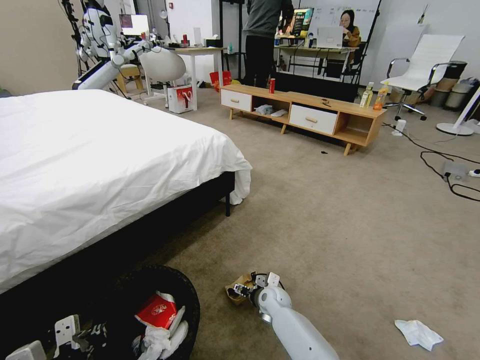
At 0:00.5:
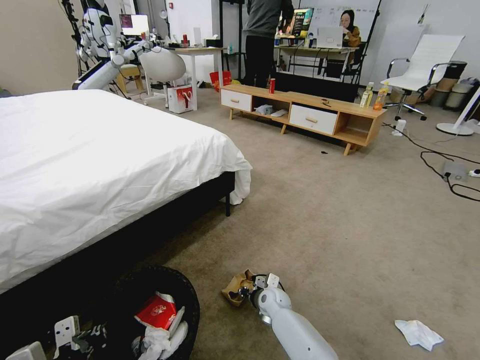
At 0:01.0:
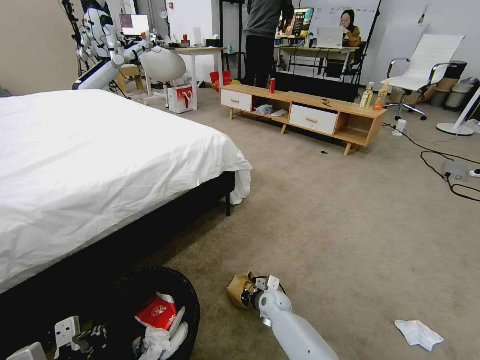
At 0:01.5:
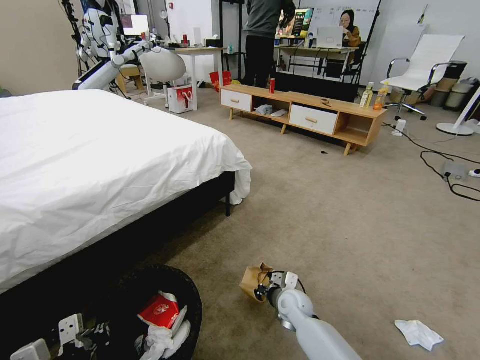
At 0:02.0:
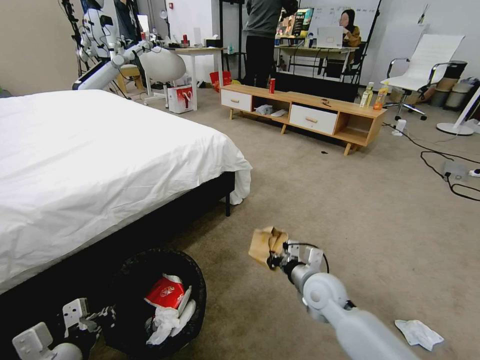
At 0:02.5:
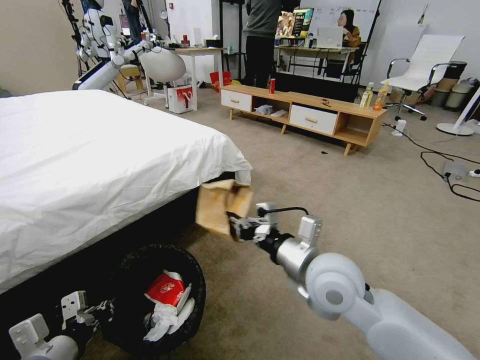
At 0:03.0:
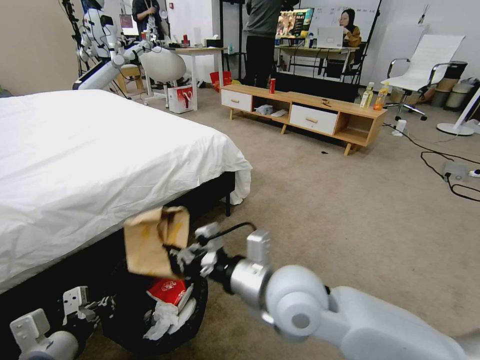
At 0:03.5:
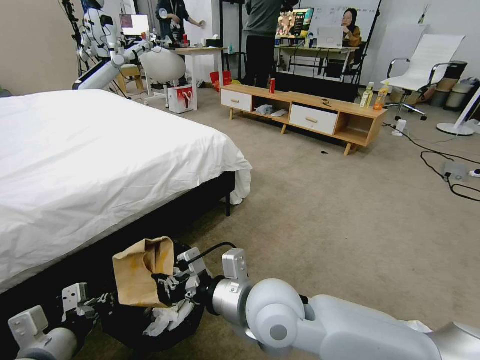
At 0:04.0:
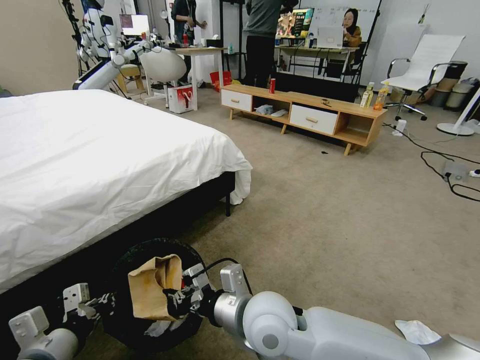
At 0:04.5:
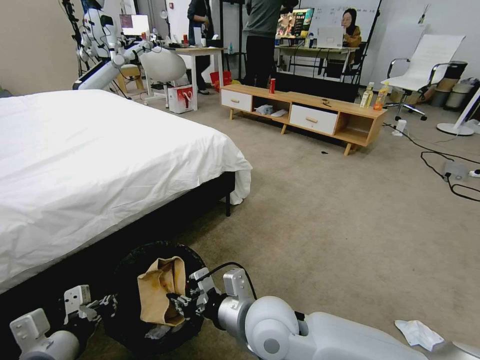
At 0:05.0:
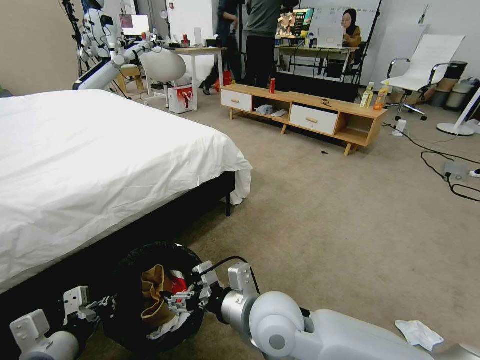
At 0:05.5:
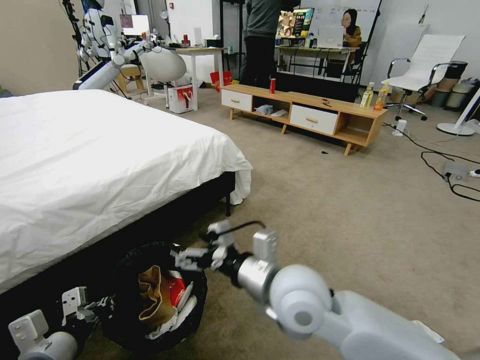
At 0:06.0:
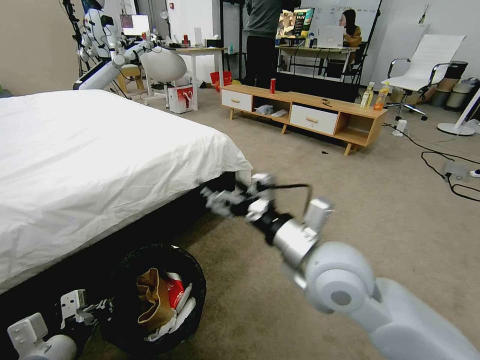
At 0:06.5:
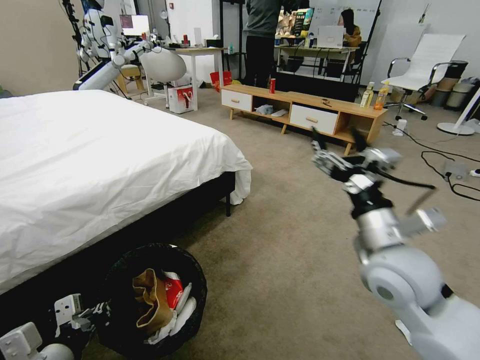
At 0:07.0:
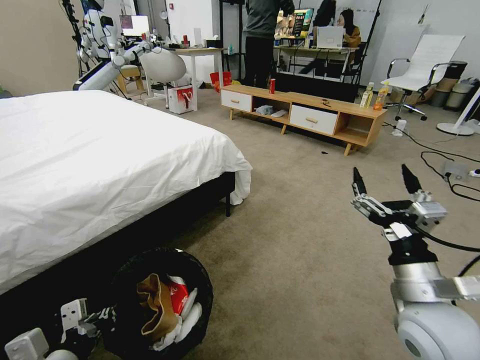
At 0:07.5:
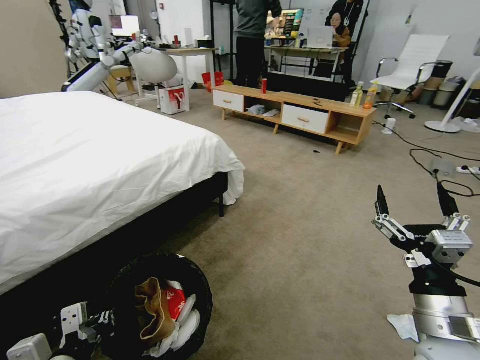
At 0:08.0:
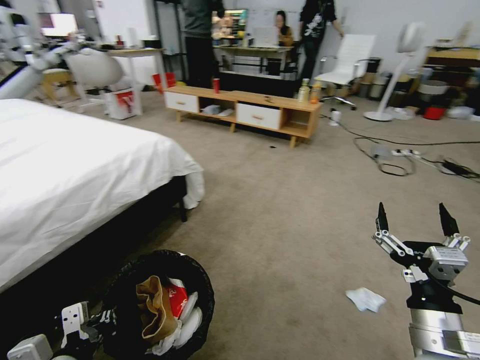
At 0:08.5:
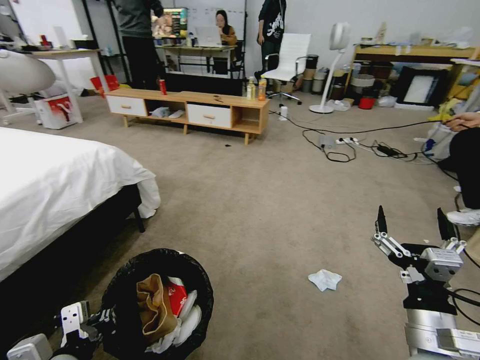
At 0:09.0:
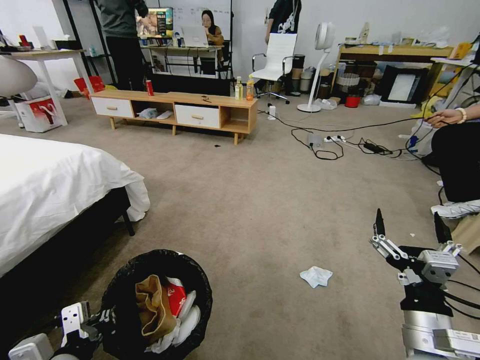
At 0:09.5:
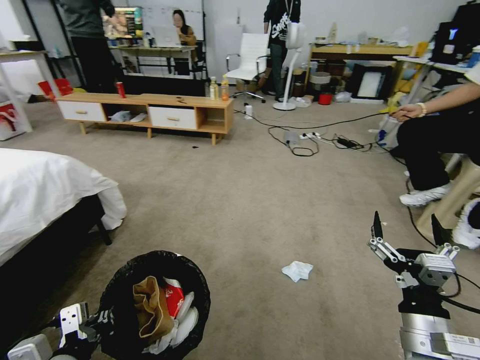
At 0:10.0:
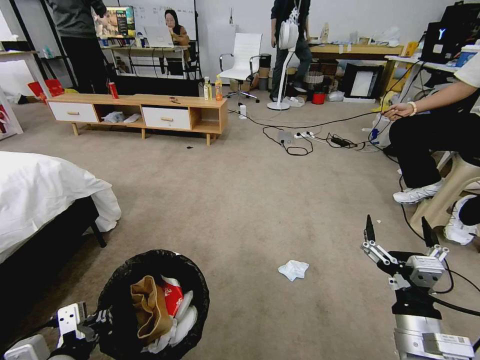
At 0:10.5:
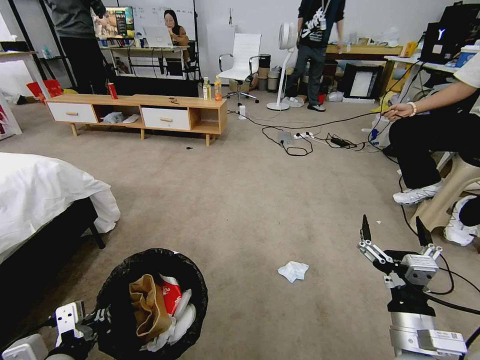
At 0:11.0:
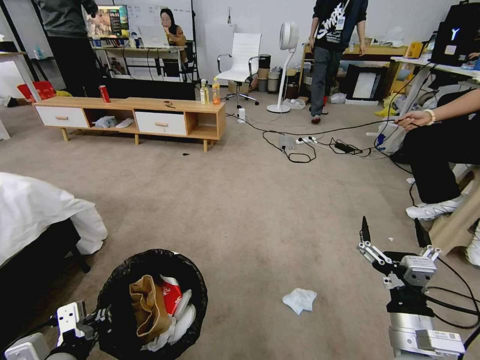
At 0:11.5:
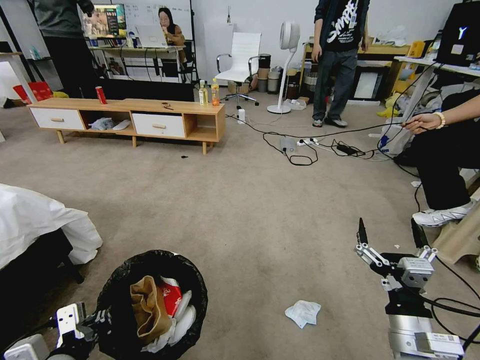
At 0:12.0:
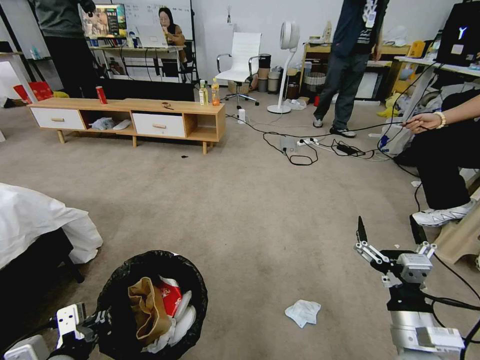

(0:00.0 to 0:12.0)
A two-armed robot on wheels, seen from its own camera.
Task of the whole recording: Pick up the trash bin and place the garbage on the floor into it.
0:00.0 - 0:02.0: The right gripper heads upward and to the right, covering roughly 15 cm, and closes.
0:02.0 - 0:04.0: The right gripper heads to the left, upward and backward, covering about 25 cm.
0:04.0 - 0:06.0: The right gripper travels upward and to the right by approximately 15 cm, and opens.
0:06.0 - 0:08.0: The right gripper shifts some 25 cm to the right, downward and backward; the left gripper shifts by about 5 cm.

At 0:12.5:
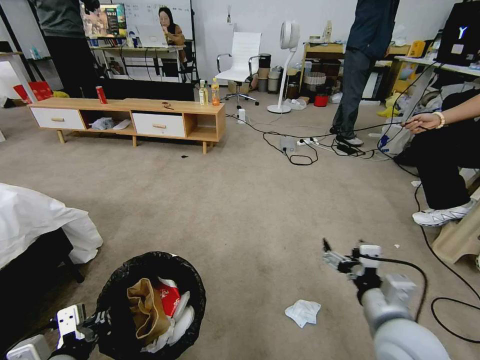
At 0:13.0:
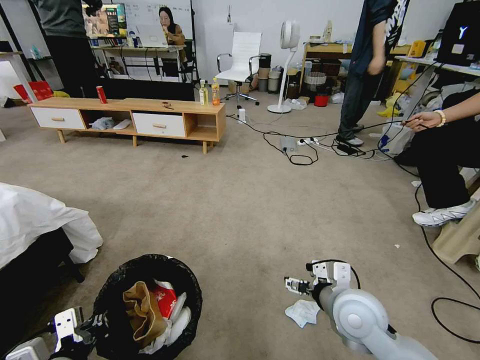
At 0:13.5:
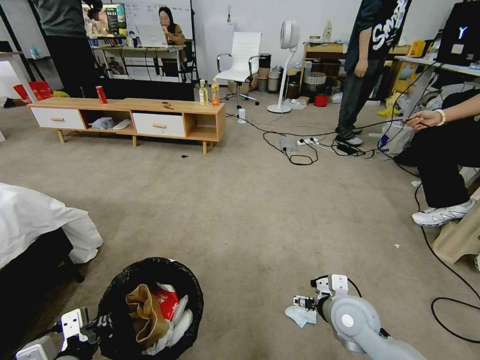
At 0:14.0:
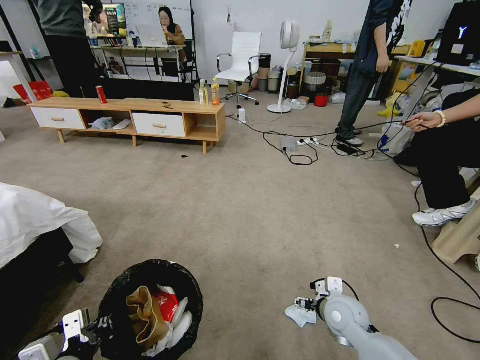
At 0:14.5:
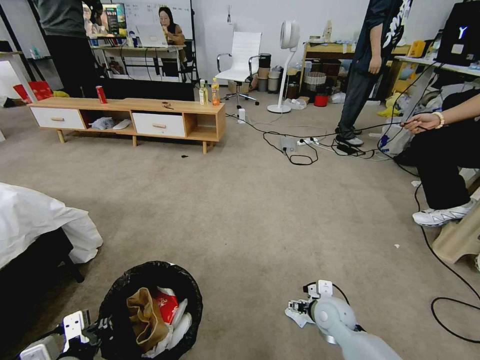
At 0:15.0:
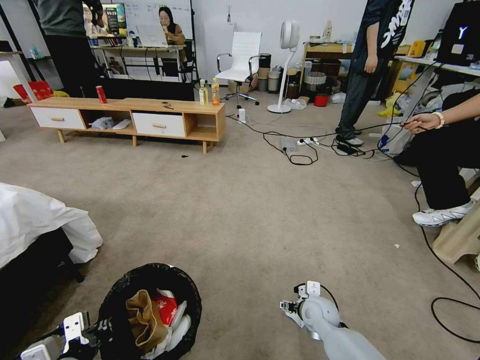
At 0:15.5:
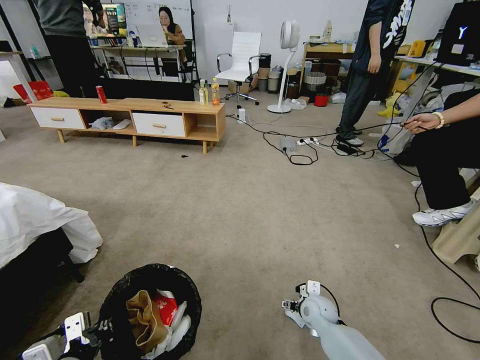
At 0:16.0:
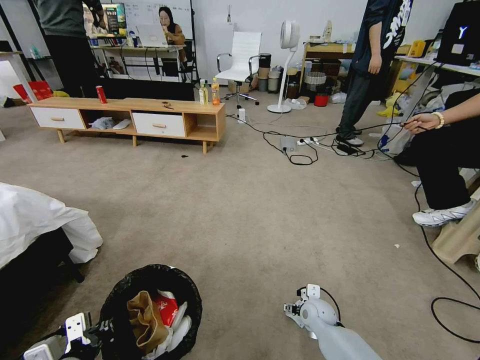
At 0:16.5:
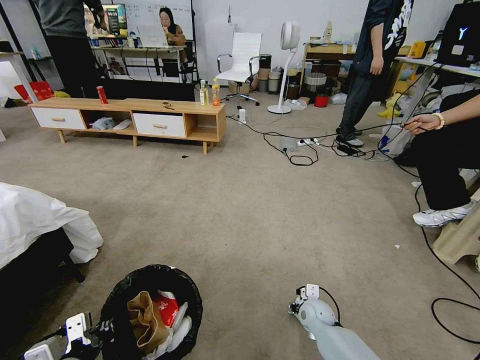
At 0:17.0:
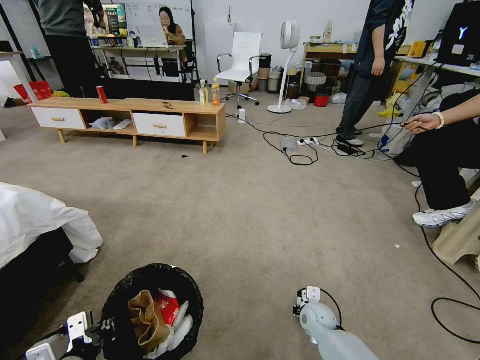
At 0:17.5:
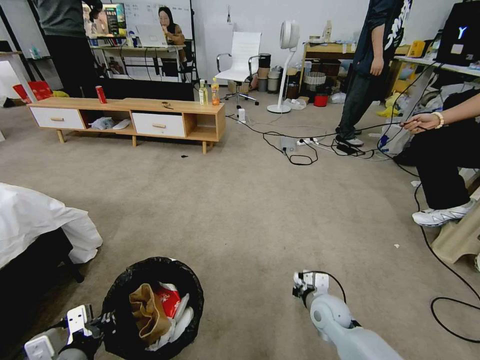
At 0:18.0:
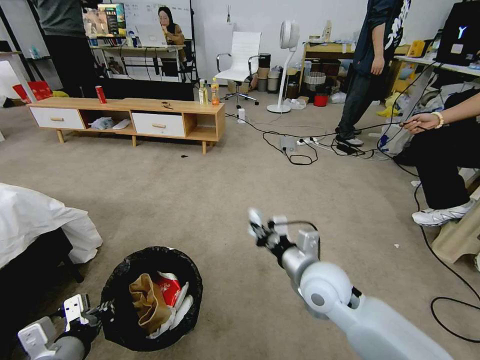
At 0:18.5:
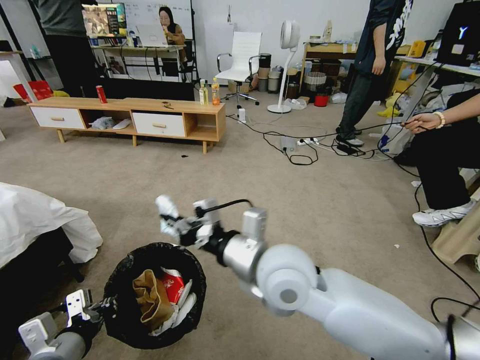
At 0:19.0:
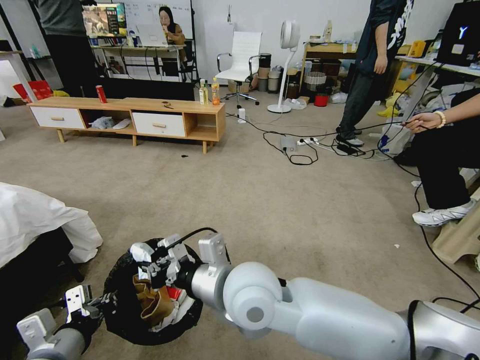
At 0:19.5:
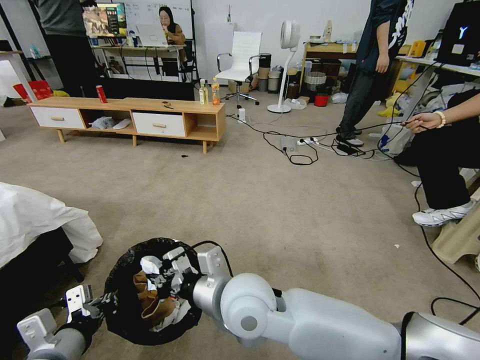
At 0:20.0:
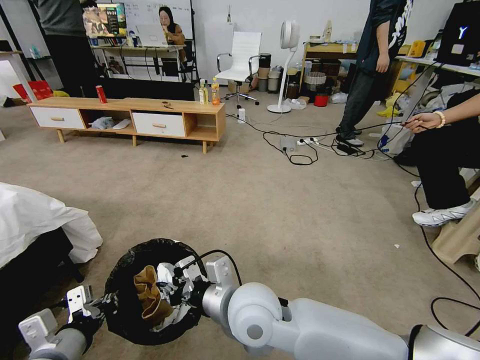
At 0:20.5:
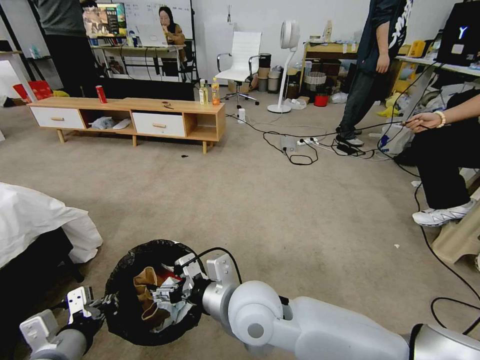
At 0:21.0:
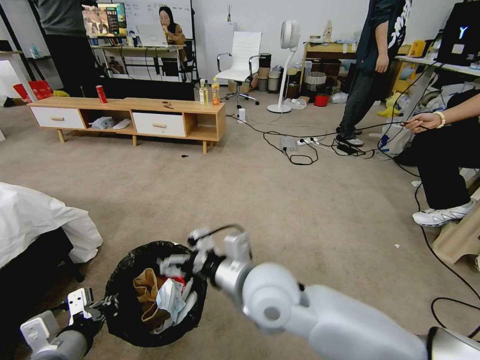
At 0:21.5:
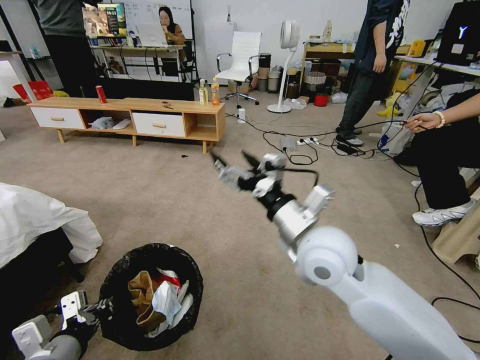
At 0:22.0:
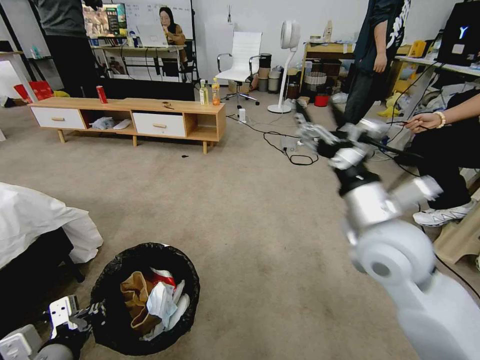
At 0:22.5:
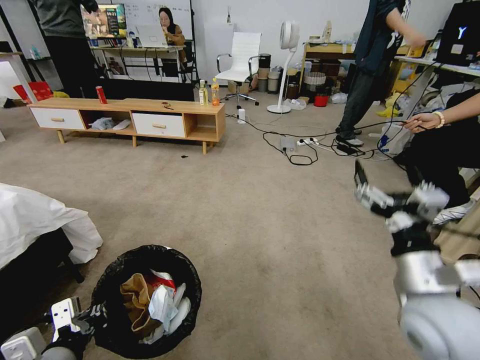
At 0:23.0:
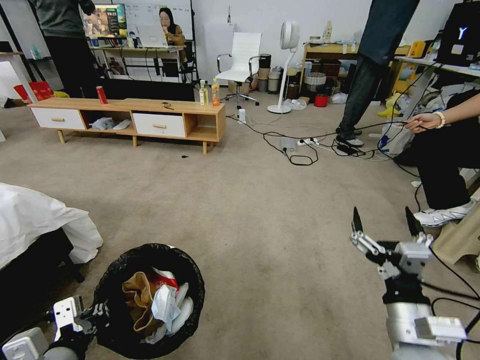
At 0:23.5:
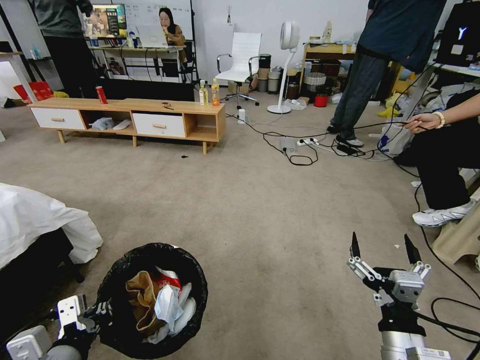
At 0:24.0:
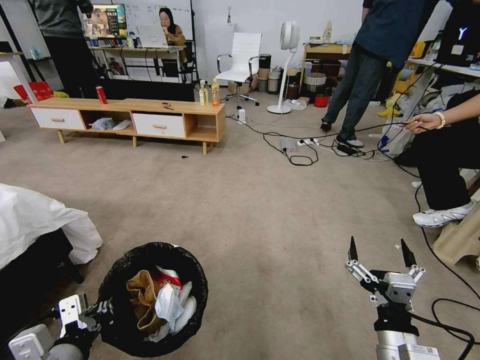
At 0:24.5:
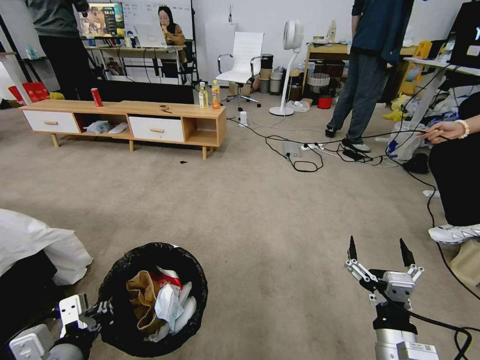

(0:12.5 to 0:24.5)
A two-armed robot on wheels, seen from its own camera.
Task of the whole recording: Pick up the trash bin and place the garbage on the floor into it.
0:12.5 - 0:14.5: The right gripper is displaced downward and forward by about 25 cm.
0:14.5 - 0:16.5: The right gripper goes about 10 cm downward, and closes.
0:16.5 - 0:18.5: The right gripper moves upward and to the left, roughly 40 cm, and closes its fingers.
0:18.5 - 0:20.5: The right gripper is displaced downward and to the left by some 10 cm, and opens up.
0:20.5 - 0:22.5: The right gripper shifts about 25 cm to the right.
0:22.5 - 0:24.5: The right gripper shifts roughly 15 cm downward and backward.
